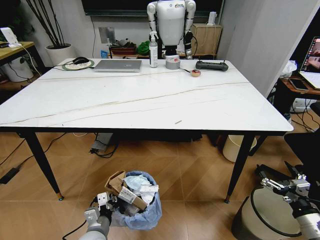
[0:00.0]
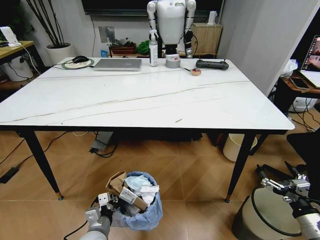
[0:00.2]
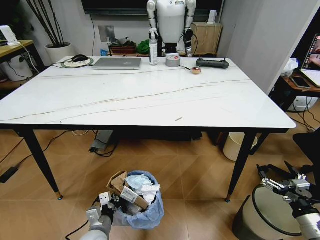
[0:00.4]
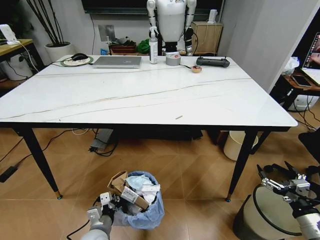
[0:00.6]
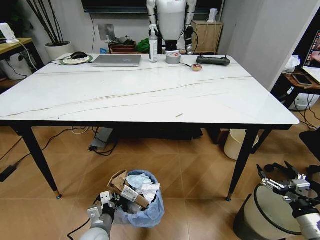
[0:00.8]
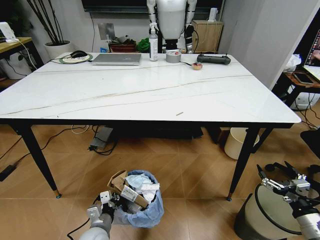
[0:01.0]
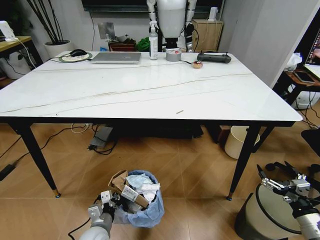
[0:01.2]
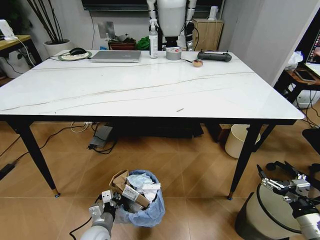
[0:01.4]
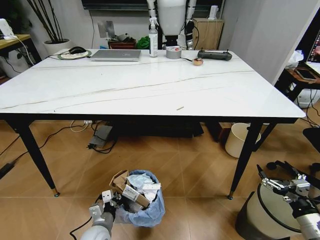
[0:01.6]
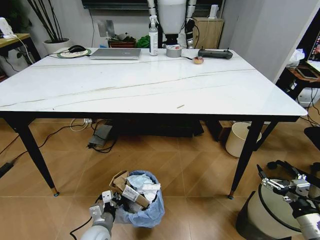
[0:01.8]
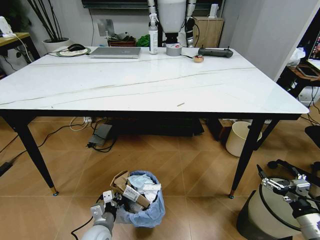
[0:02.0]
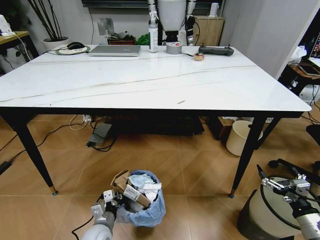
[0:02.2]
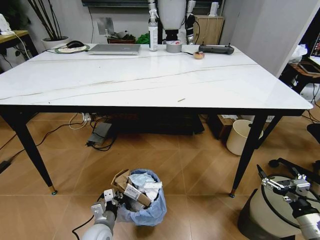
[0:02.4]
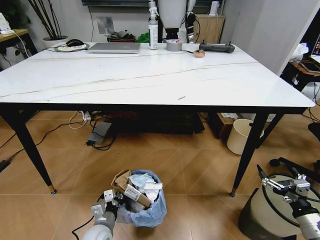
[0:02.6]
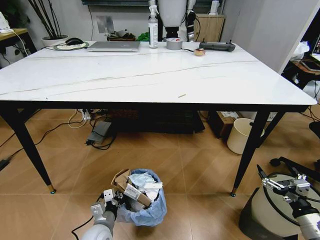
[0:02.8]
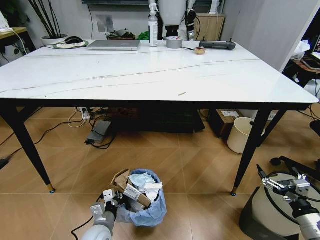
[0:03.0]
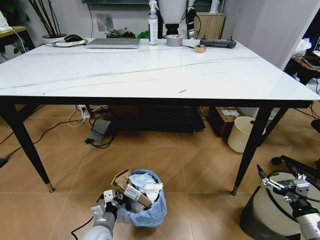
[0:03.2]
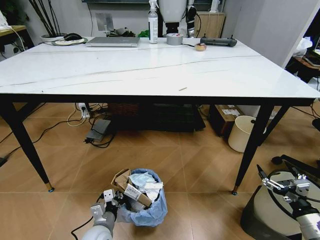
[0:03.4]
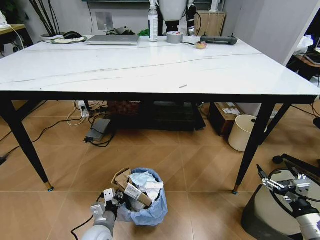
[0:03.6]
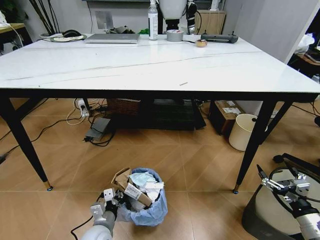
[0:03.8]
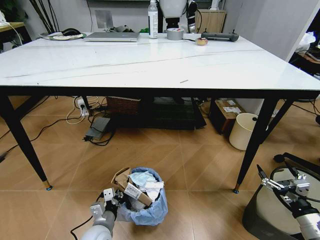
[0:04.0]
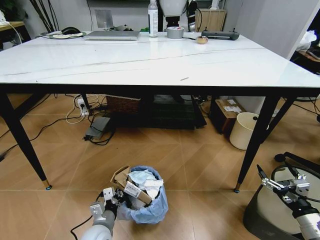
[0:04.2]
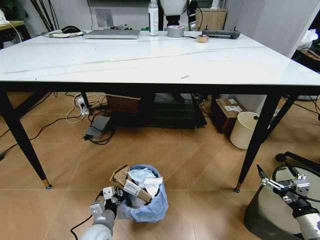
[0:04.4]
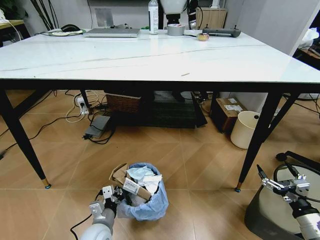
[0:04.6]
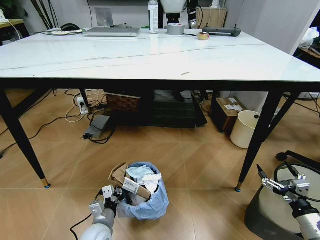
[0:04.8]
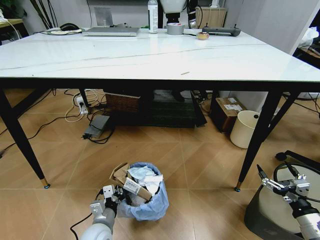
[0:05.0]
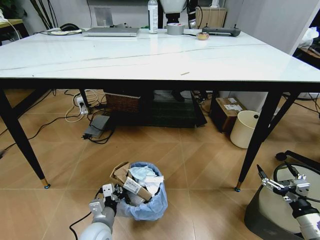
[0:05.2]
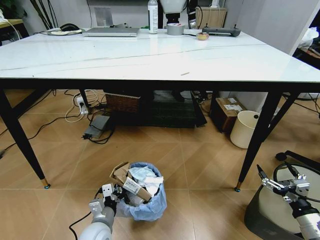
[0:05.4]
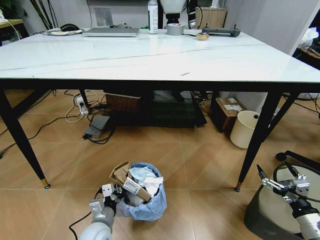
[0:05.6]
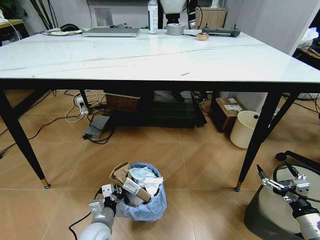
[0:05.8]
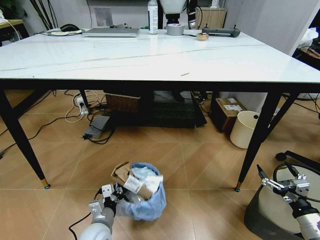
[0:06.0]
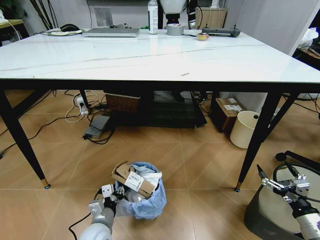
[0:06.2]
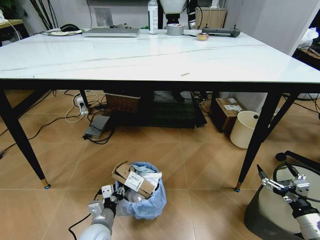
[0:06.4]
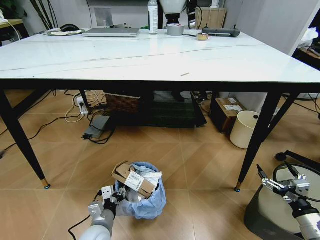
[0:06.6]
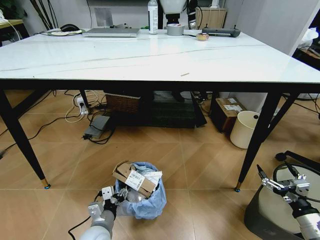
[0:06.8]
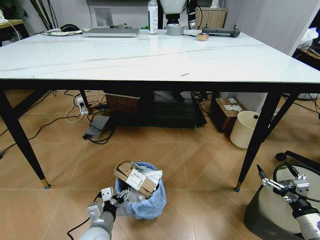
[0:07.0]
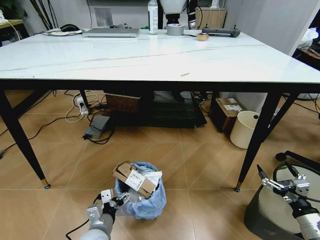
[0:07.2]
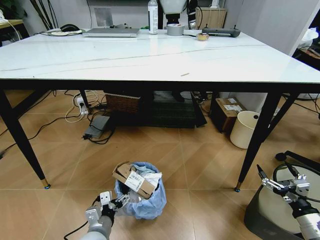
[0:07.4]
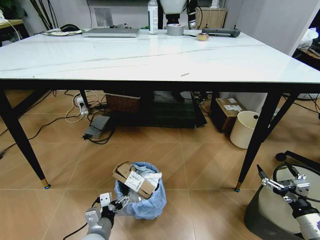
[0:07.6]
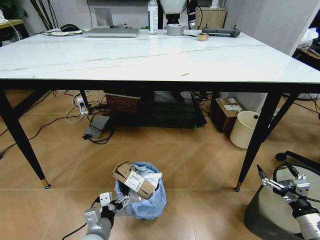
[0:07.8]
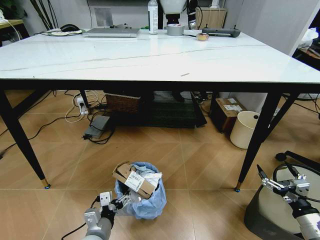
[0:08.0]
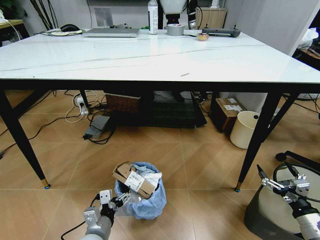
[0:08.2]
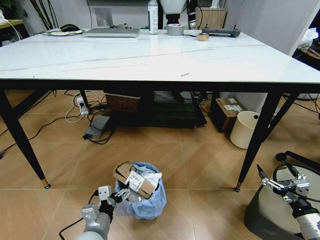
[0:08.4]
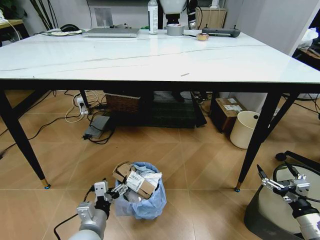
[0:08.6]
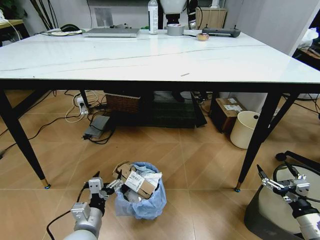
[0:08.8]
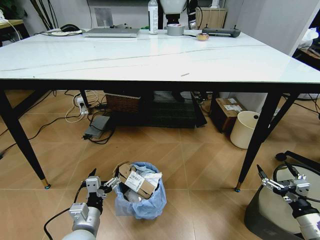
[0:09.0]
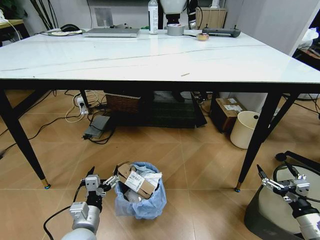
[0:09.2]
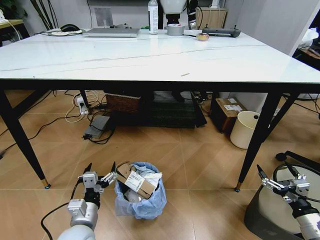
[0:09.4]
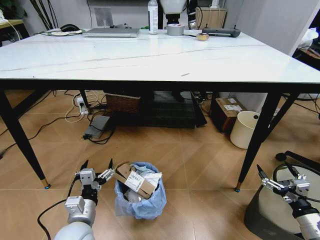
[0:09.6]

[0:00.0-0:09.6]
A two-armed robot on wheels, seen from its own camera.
Task of the whole recording: Pick up the trash bin and place the trash from the table into it.
0:04.8 to 0:06.4: The left gripper opens its fingers.
0:06.4 to 0:08.0: The left gripper shifts by roughly 5 cm, and opens up.
0:08.0 to 0:09.6: The left gripper moves upward, approximately 5 cm.
